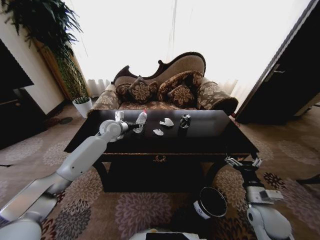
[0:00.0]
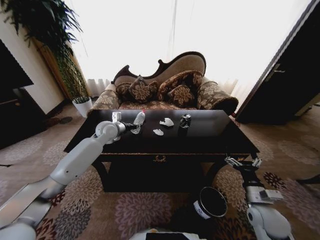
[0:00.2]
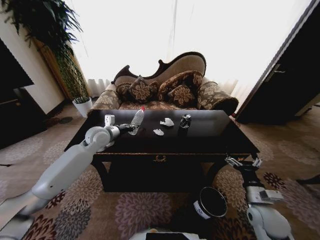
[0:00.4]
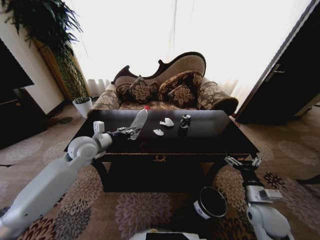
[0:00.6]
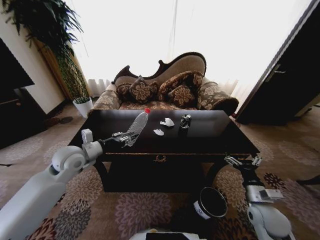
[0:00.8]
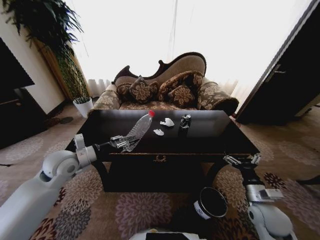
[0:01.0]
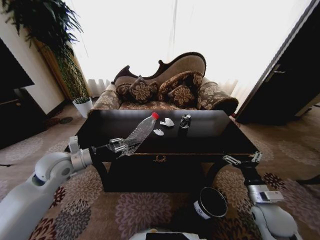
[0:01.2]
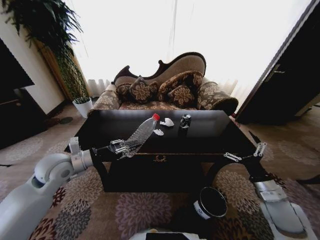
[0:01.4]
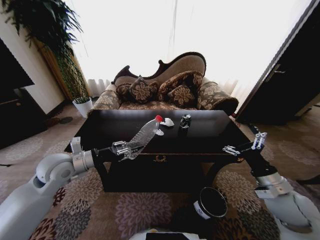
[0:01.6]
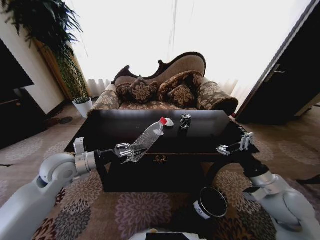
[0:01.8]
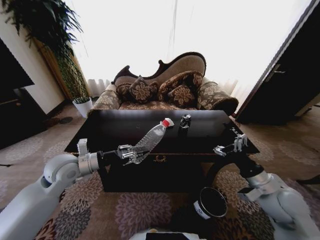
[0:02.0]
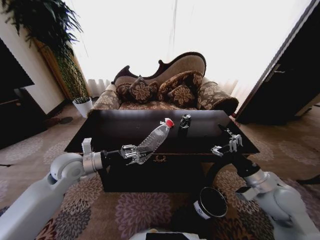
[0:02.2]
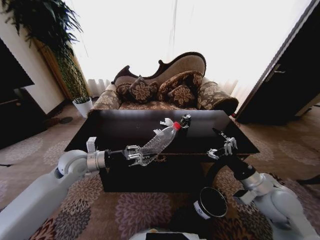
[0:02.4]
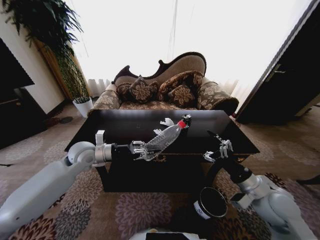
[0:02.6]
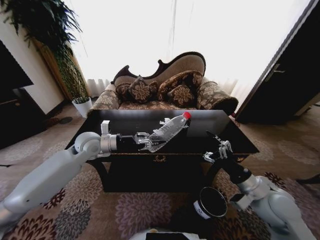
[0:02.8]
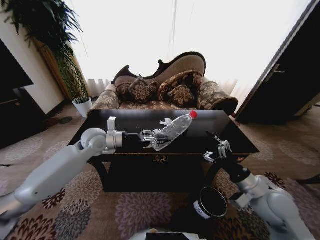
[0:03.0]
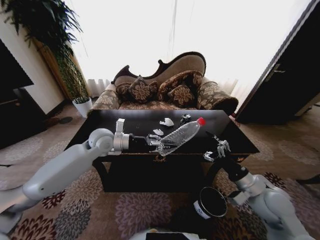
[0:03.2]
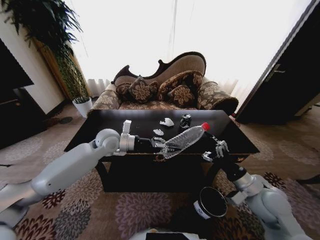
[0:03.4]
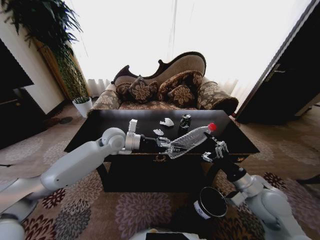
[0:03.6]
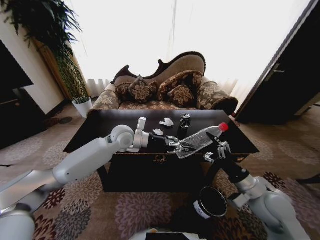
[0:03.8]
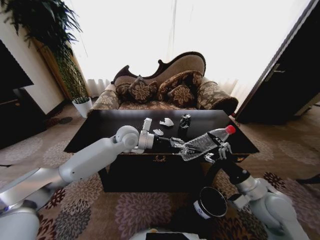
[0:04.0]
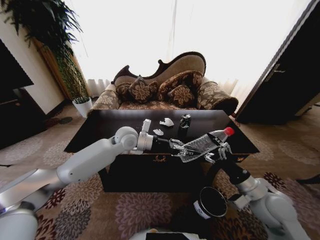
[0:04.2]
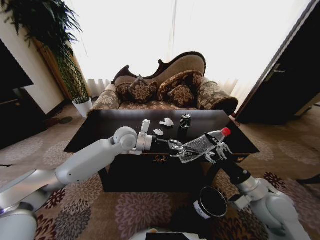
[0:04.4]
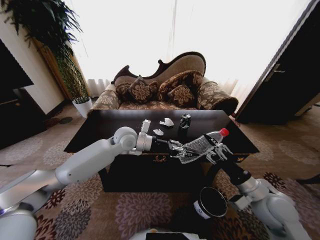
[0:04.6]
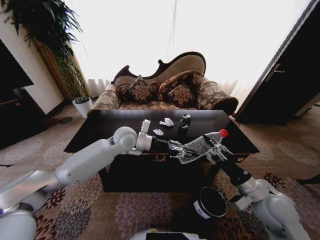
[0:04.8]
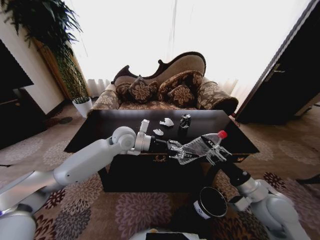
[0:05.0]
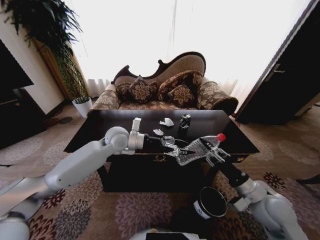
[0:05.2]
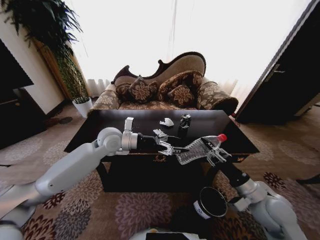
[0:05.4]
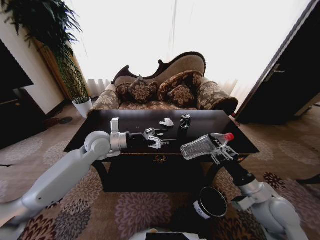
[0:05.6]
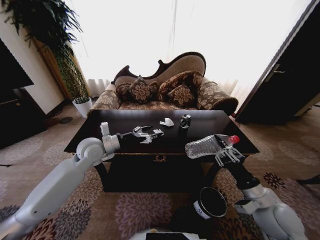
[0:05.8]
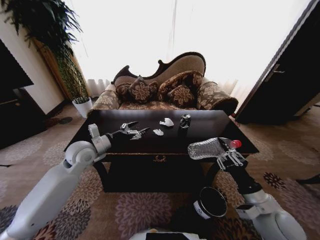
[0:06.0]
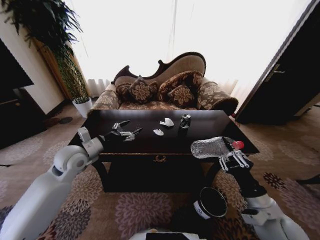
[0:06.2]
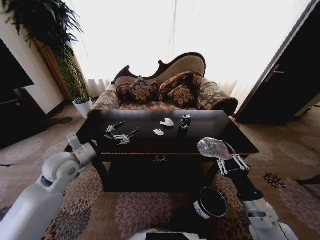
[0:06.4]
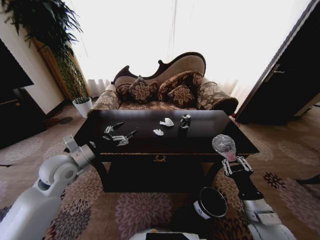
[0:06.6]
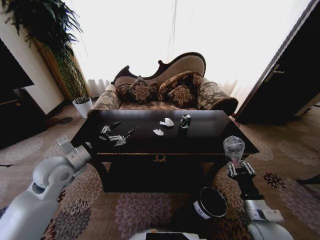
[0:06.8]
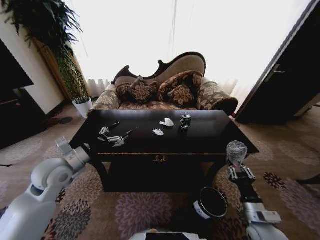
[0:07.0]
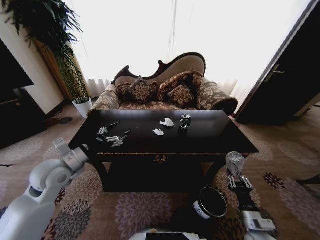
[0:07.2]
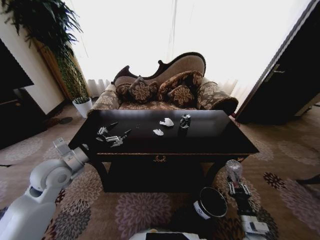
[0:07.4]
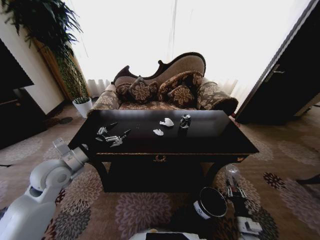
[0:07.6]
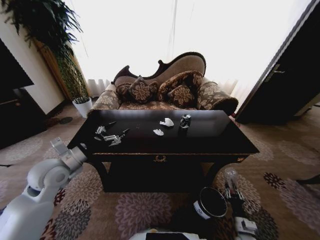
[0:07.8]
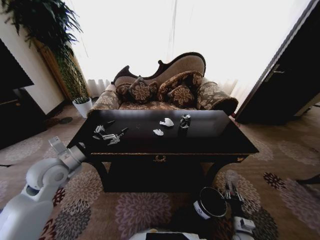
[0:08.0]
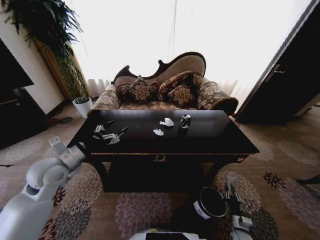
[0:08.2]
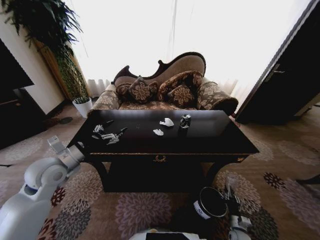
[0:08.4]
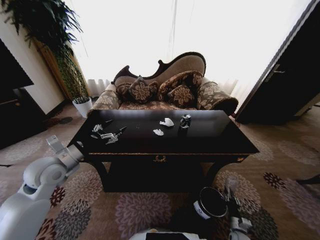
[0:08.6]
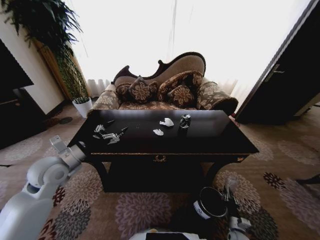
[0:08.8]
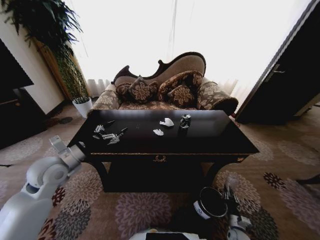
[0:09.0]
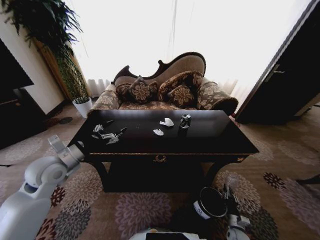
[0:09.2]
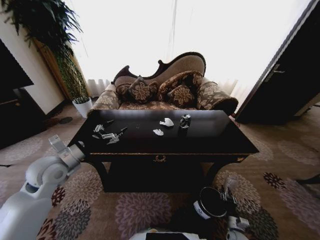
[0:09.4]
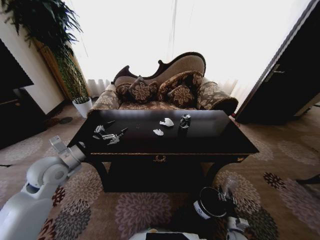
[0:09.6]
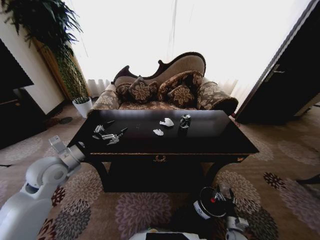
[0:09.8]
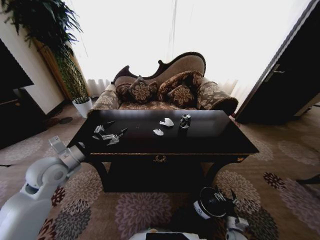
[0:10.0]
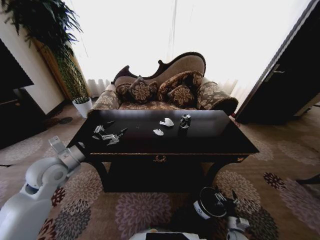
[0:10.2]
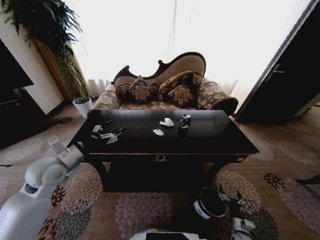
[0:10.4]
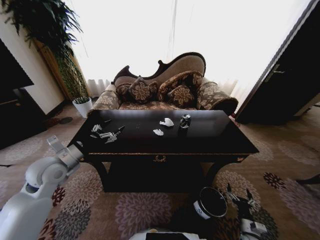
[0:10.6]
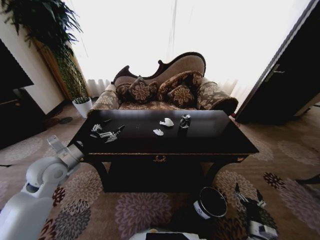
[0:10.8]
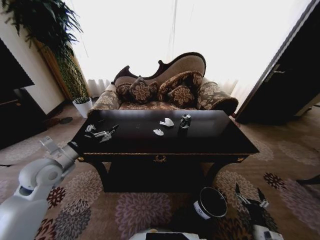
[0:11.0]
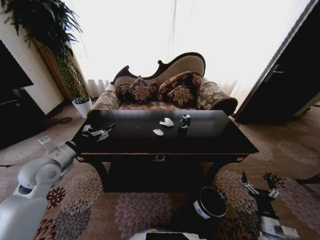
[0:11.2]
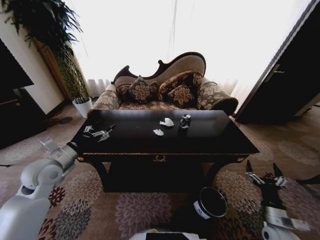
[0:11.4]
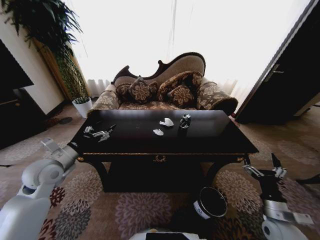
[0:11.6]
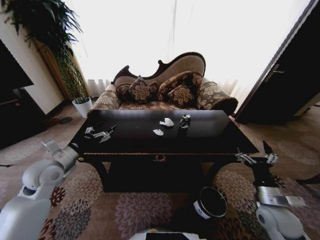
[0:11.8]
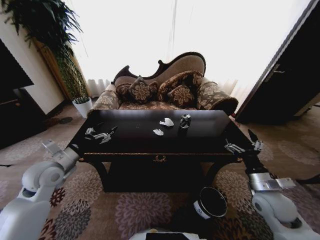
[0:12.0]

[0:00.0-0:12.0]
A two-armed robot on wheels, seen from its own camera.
Task of the whole recording: Move to the front of the table and place the trash on the table into the trash bin.
0:00.0 to 0:01.6: The left gripper shifts some 25 cm backward and to the left, and closes. The right gripper goes some 10 cm upward.
0:01.6 to 0:03.0: The left gripper shifts roughly 15 cm forward and to the right, while the right gripper shifts about 5 cm to the left.
0:03.0 to 0:04.4: The left gripper moves to the right, approximately 10 cm.
0:04.4 to 0:06.0: The left gripper moves to the left, roughly 15 cm, and opens; the right gripper closes its fingers.
0:06.0 to 0:07.6: The left gripper travels backward and to the left by approximately 10 cm. The right gripper is displaced downward by roughly 25 cm.
0:07.6 to 0:09.0: The right gripper goes approximately 10 cm downward.
0:09.0 to 0:10.4: The right gripper opens up.
0:10.4 to 0:12.0: The right gripper is displaced upward by approximately 30 cm.

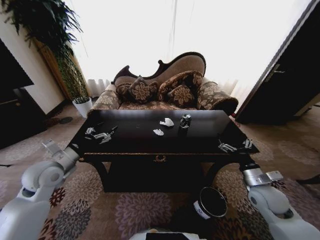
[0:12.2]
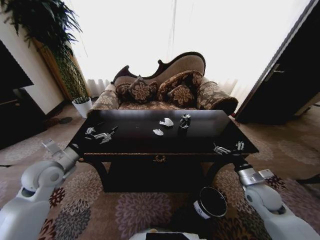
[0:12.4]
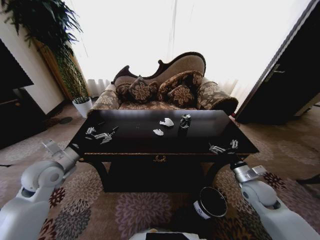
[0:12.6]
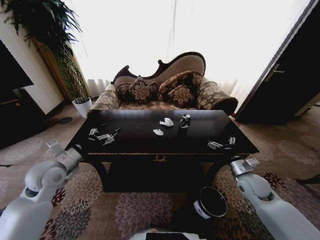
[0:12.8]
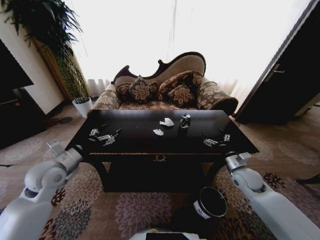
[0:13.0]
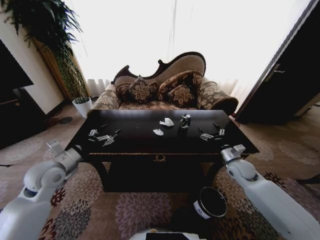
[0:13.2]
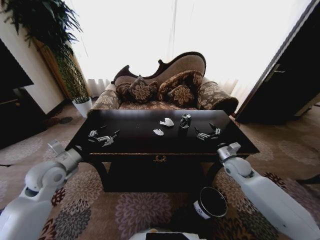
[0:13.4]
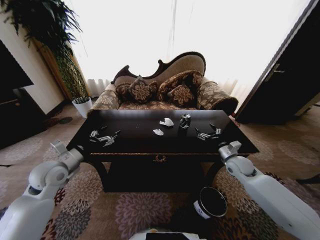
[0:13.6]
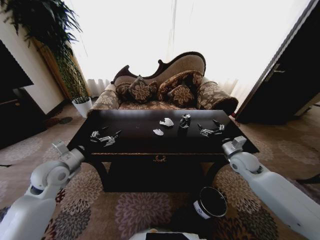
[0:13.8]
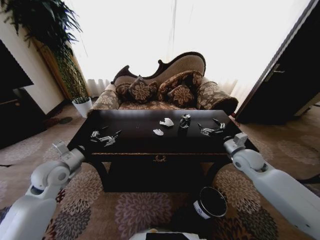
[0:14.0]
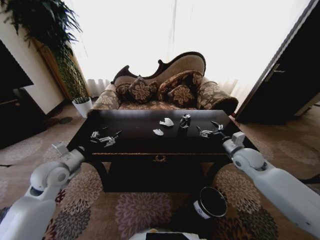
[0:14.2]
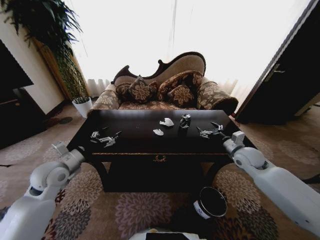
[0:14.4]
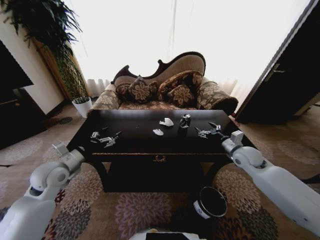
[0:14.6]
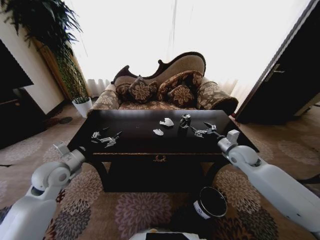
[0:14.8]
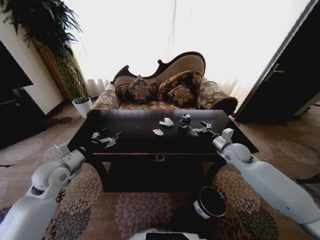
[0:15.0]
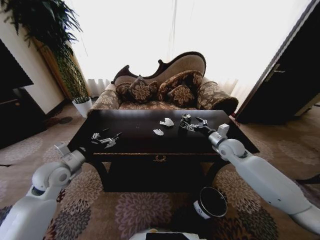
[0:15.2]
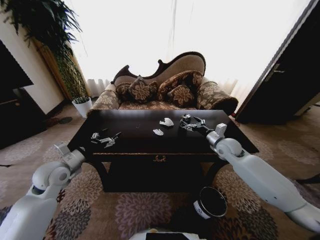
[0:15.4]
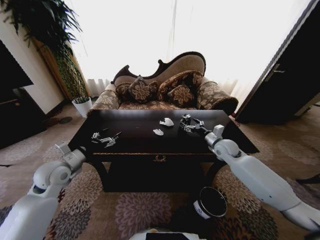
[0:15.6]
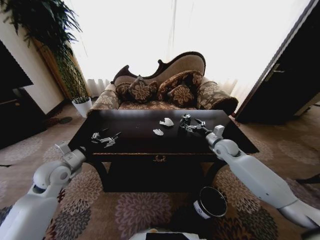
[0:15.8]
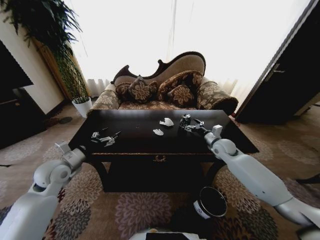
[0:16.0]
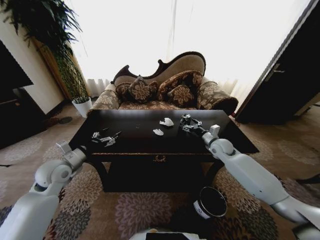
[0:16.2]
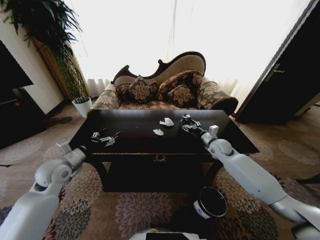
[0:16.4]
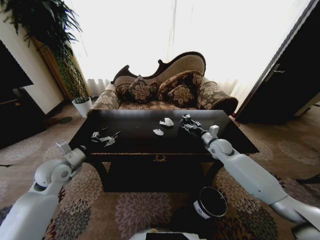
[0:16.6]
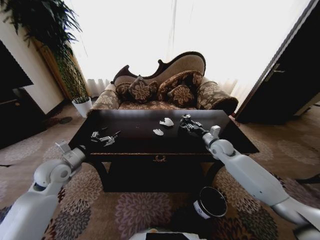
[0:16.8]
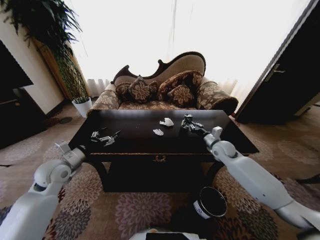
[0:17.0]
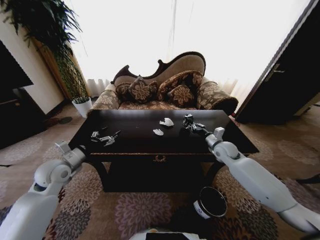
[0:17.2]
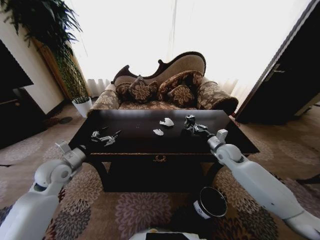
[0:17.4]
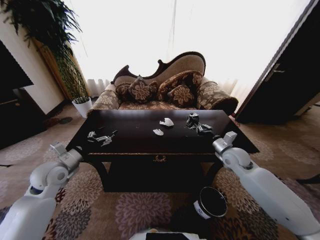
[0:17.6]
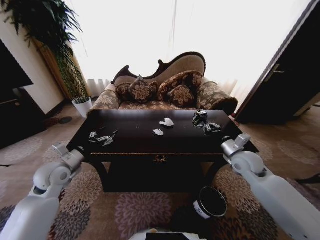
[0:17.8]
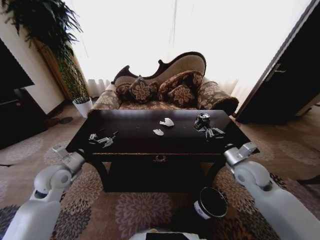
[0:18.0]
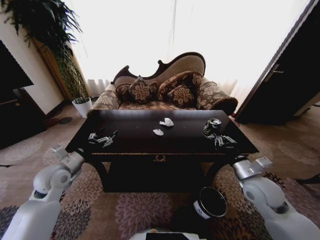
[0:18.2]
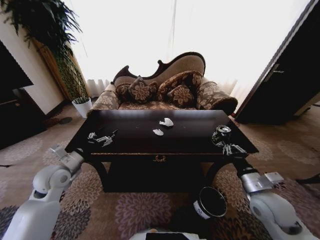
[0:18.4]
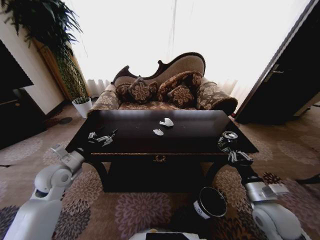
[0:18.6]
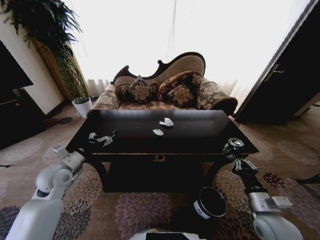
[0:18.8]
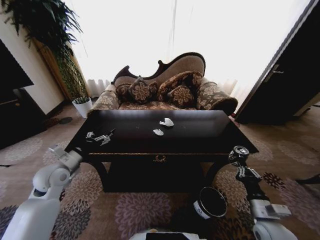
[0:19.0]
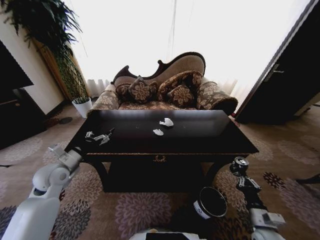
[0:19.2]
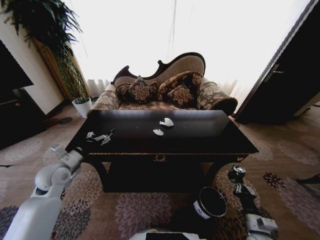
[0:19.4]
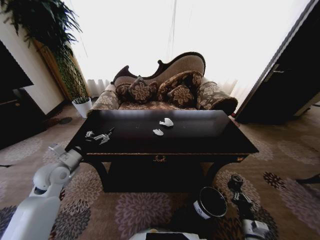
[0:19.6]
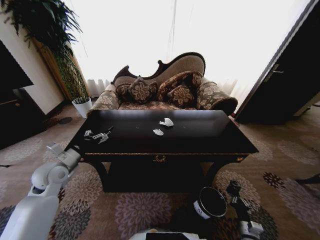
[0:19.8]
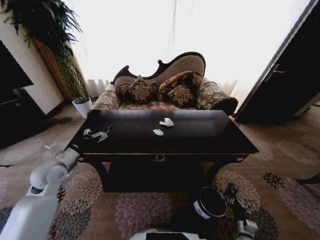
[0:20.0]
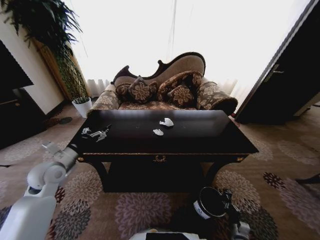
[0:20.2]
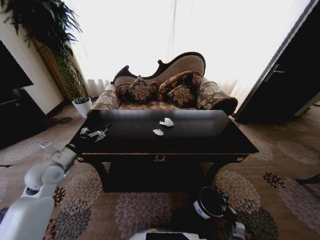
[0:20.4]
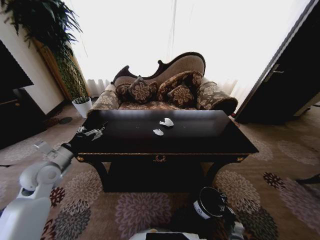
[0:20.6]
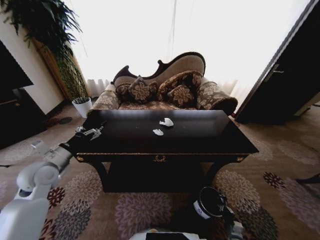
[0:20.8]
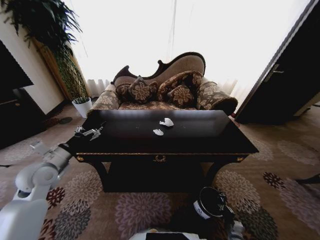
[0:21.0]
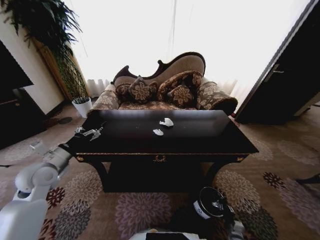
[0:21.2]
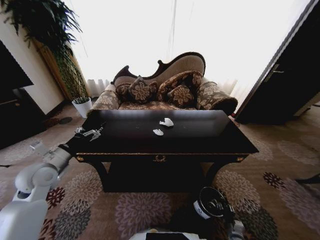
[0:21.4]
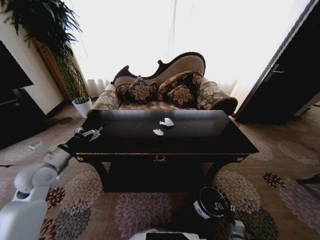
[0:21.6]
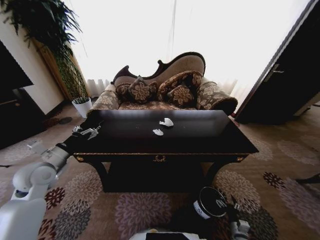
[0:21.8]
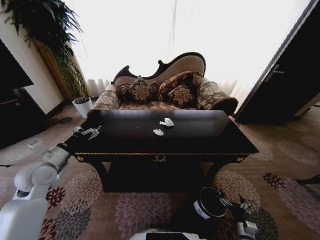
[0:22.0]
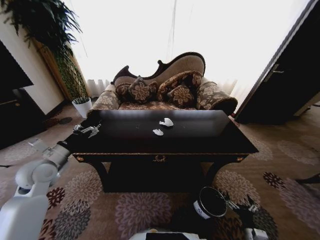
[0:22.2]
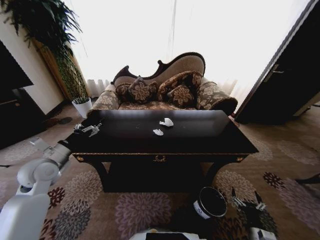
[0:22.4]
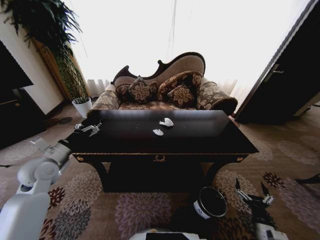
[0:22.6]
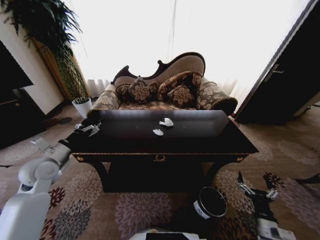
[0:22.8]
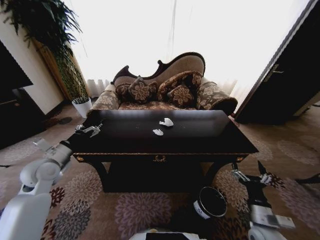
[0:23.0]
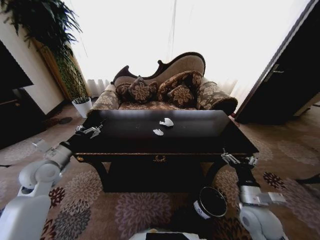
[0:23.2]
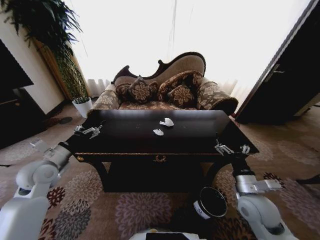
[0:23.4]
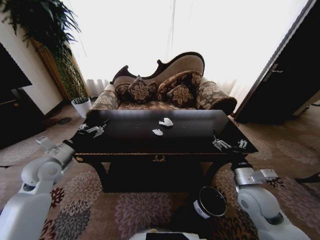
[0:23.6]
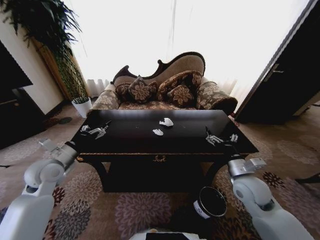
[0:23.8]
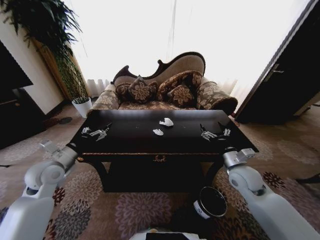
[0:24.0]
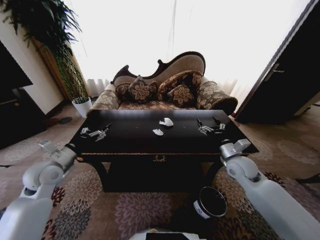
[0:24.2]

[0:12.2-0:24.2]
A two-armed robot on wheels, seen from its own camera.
Task of the whole recording: Move to the front of the table and place the trash on the table into the trash bin.
0:12.2 to 0:13.8: The right gripper is displaced forward by about 15 cm.
0:13.8 to 0:15.2: The right gripper moves forward, some 5 cm.
0:15.2 to 0:16.6: The right gripper changes place by roughly 5 cm, and closes up.
0:16.6 to 0:18.2: The right gripper travels backward by roughly 20 cm, and closes.
0:18.2 to 0:19.8: The right gripper heads downward and backward, covering approximately 35 cm.
0:19.8 to 0:21.2: The right gripper goes some 10 cm downward.
0:21.2 to 0:22.6: The right gripper heads upward, covering roughly 20 cm, and opens its fingers.
0:22.6 to 0:24.2: The right gripper goes some 35 cm forward and upward.
